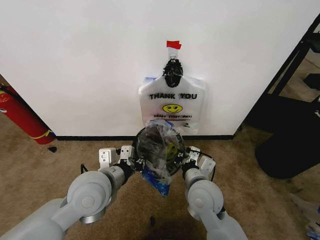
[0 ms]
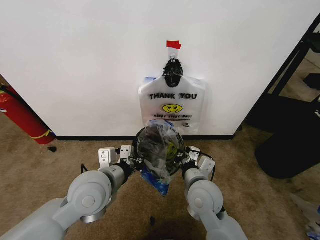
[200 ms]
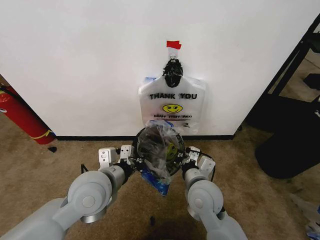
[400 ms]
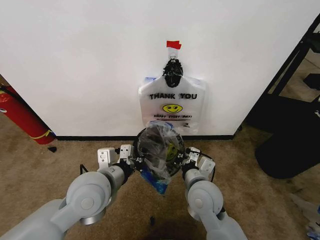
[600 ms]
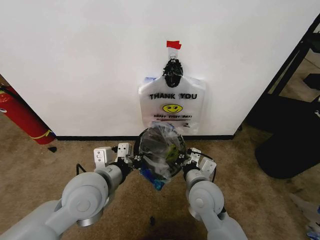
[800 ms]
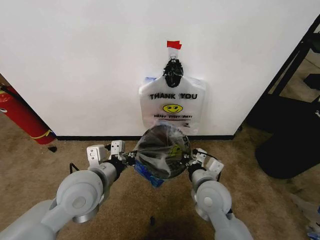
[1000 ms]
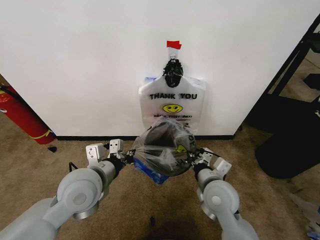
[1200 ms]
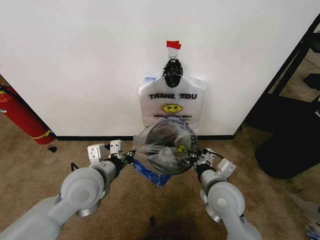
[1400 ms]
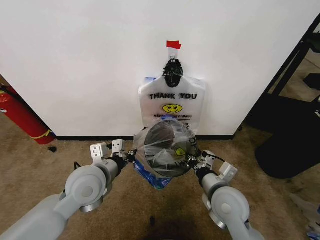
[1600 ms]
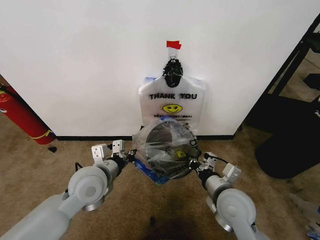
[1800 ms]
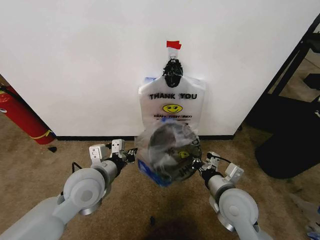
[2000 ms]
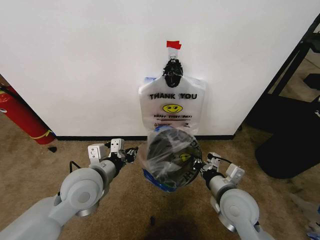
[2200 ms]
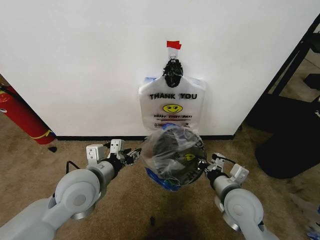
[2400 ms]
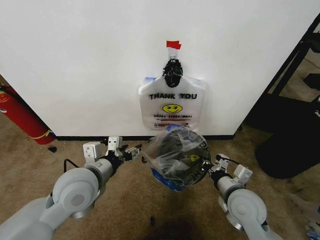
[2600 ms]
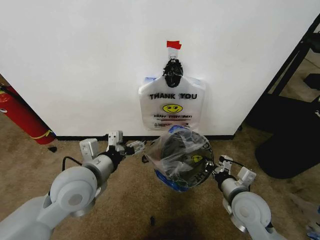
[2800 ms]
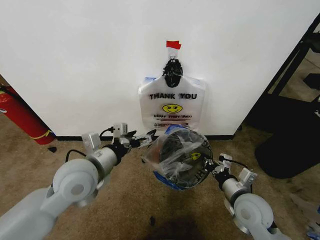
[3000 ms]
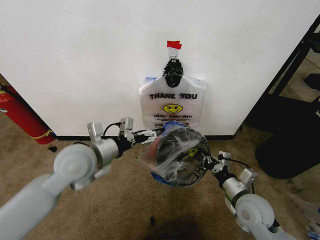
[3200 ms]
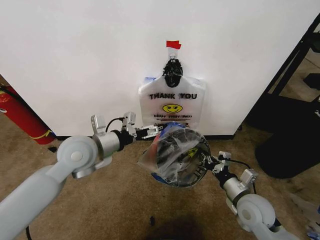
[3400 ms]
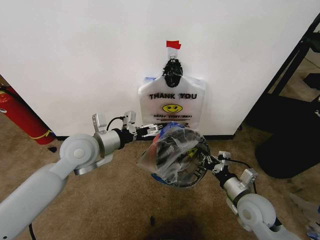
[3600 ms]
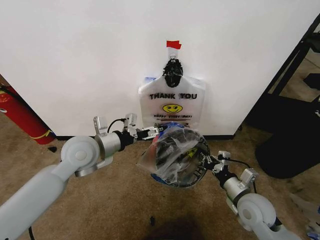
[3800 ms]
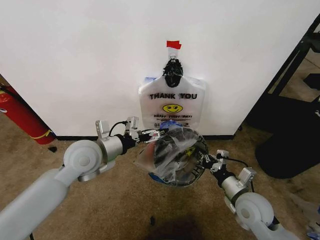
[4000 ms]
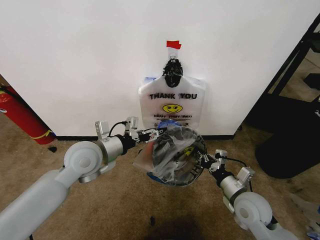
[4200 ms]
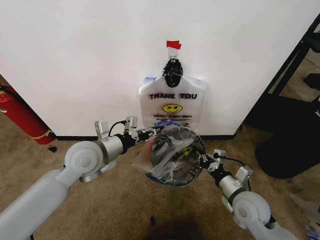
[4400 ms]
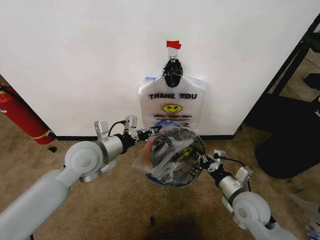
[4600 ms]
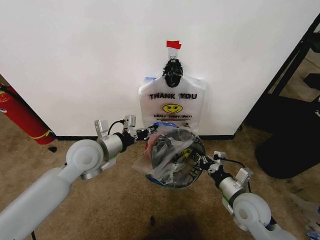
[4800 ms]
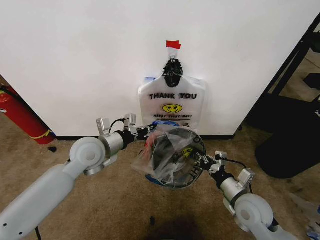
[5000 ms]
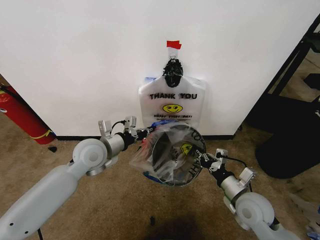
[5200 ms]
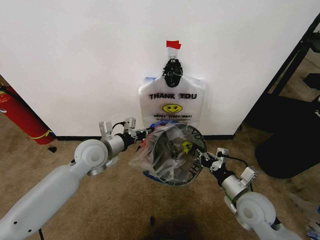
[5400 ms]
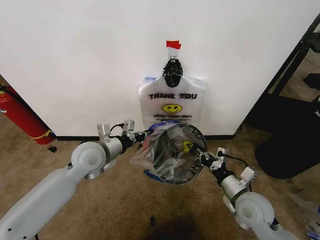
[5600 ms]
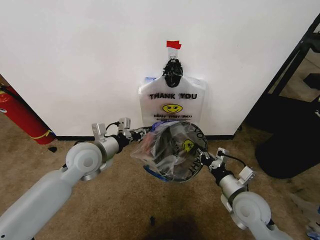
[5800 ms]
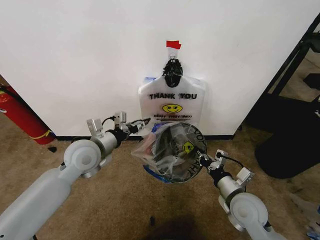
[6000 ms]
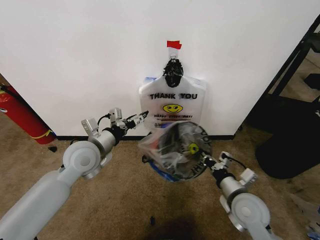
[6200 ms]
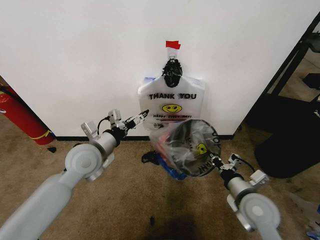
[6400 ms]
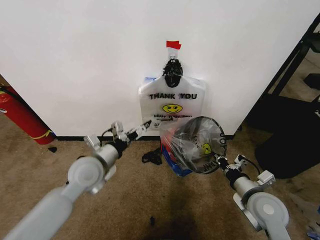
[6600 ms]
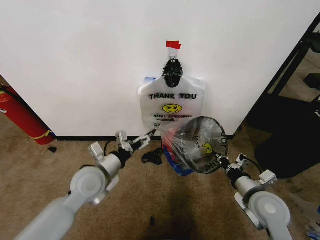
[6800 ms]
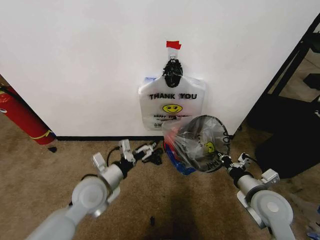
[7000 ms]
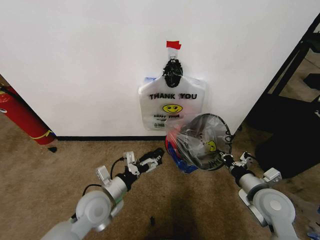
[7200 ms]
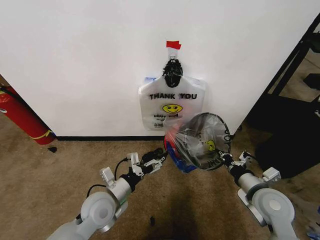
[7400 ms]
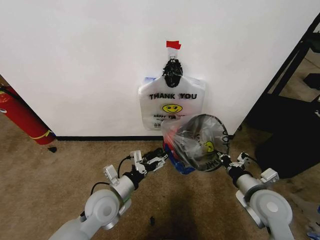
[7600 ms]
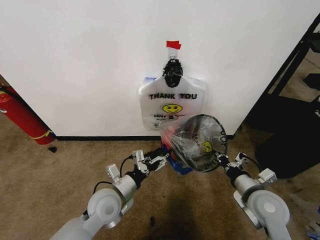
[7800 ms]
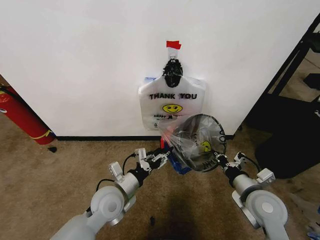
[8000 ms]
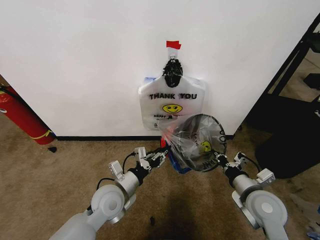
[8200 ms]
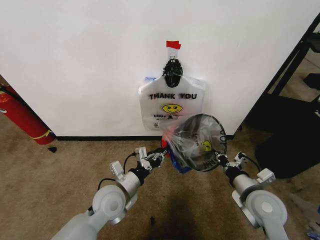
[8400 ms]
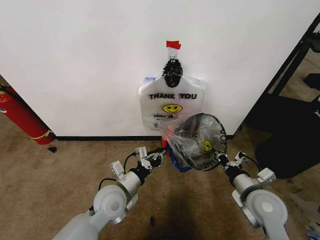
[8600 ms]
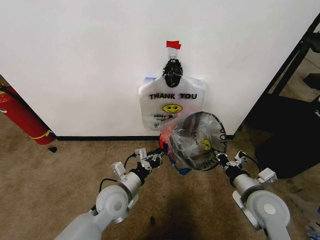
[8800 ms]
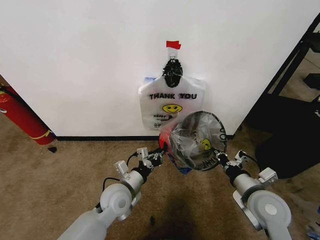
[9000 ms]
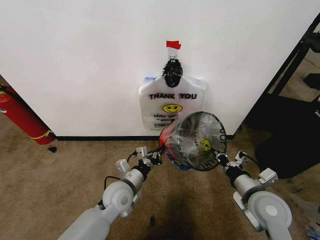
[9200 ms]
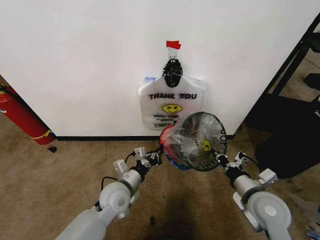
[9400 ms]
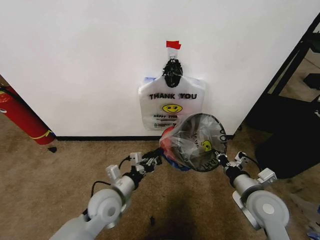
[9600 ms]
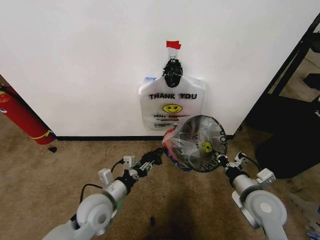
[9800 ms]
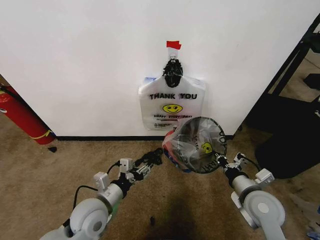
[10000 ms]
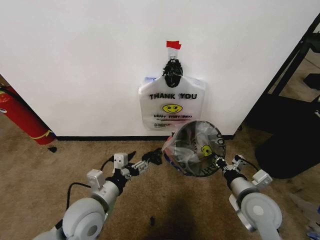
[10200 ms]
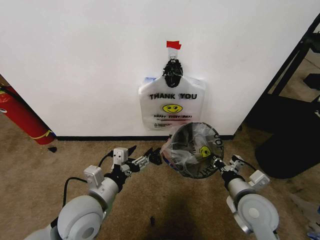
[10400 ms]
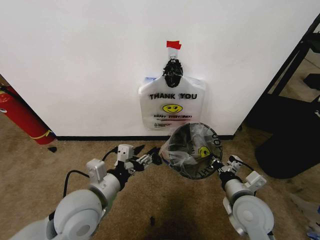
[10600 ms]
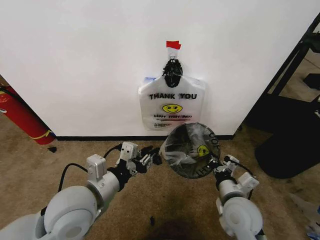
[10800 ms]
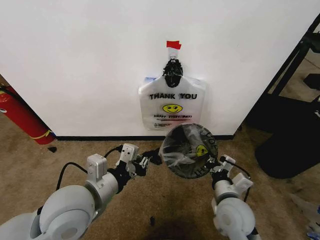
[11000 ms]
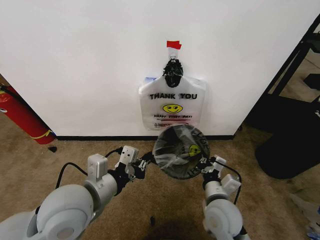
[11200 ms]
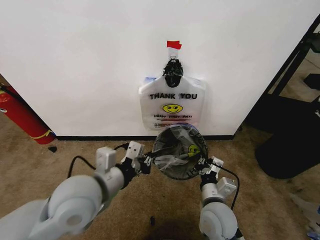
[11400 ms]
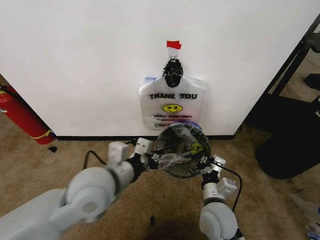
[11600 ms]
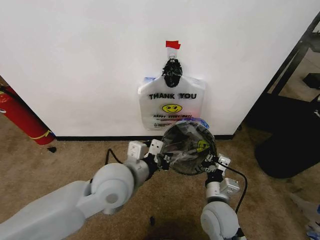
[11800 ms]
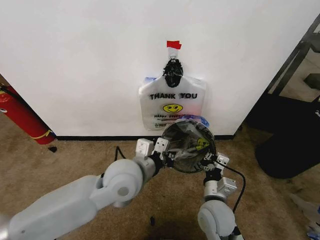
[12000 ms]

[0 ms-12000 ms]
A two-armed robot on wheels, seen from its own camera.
Task of the whole recording: Pick up the garbage bag from the wall and place it over the trash bin.
0 ms to 1600 ms: The right gripper is displaced to the right by some 5 cm.
1600 ms to 3000 ms: The right gripper is displaced to the right by some 5 cm; the left gripper opens.
3000 ms to 4400 ms: The left gripper goes roughly 10 cm forward, and closes its fingers.
4400 ms to 6000 ms: The left gripper closes, then opens again.
6000 ms to 7600 ms: The right gripper changes place by roughly 5 cm, while the left gripper is displaced downward and backward by approximately 15 cm, and opens.
7600 ms to 9000 ms: The left gripper closes.
9000 ms to 10400 ms: The left gripper is displaced upward and backward by some 10 cm, and opens its fingers.
10400 ms to 12000 ms: The left gripper is displaced to the right, forward and upward by about 15 cm, and closes. The right gripper shifts approximately 10 cm to the left.

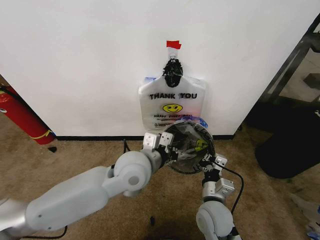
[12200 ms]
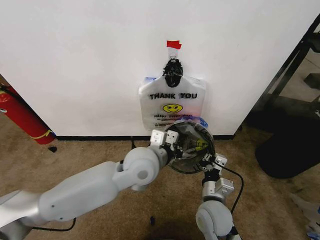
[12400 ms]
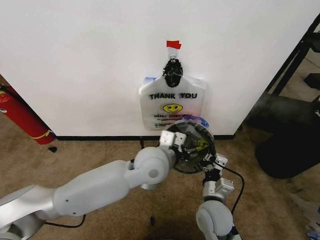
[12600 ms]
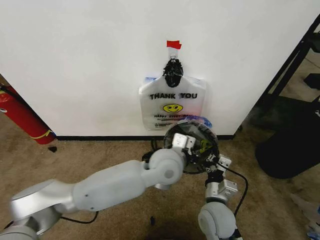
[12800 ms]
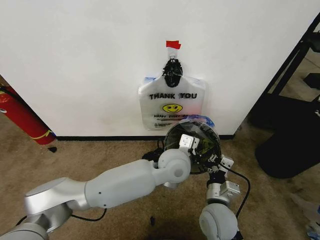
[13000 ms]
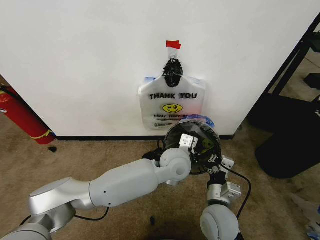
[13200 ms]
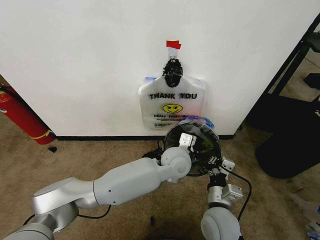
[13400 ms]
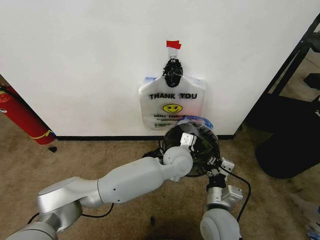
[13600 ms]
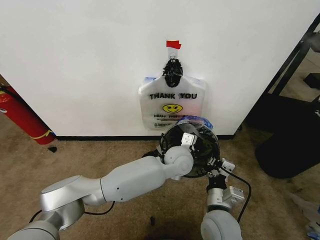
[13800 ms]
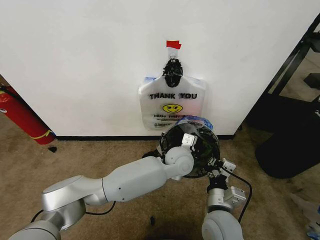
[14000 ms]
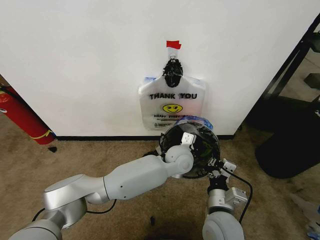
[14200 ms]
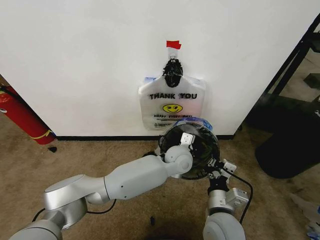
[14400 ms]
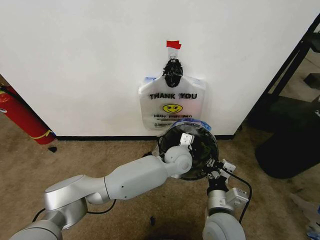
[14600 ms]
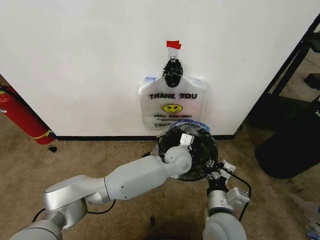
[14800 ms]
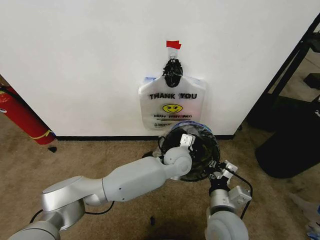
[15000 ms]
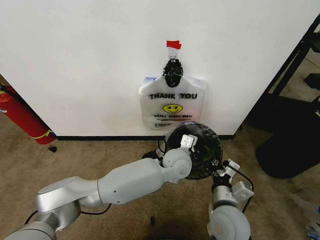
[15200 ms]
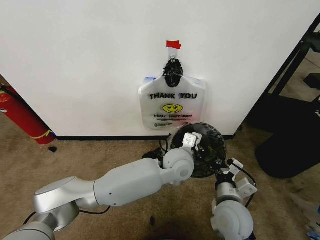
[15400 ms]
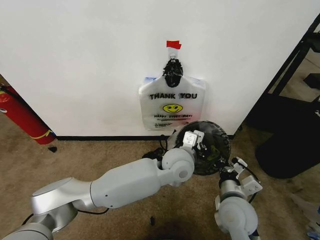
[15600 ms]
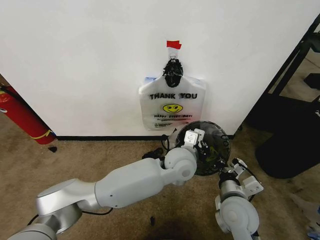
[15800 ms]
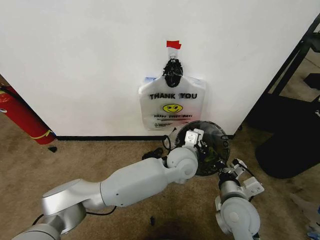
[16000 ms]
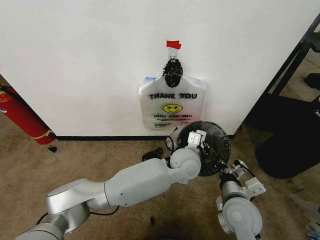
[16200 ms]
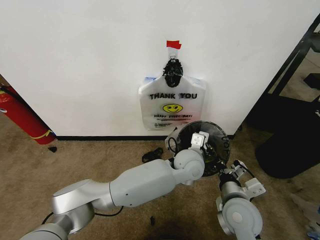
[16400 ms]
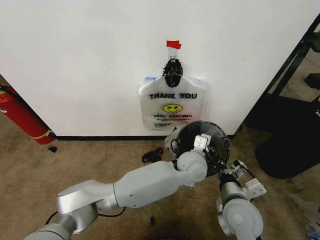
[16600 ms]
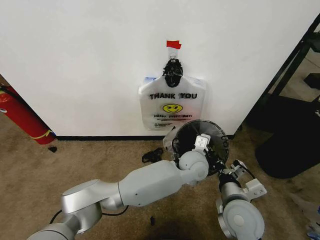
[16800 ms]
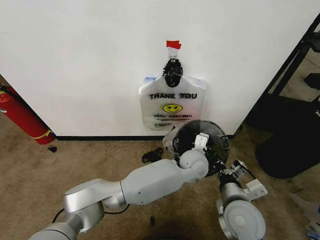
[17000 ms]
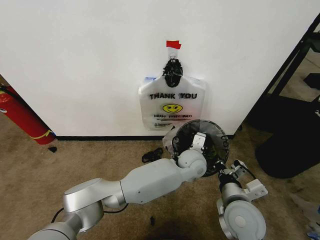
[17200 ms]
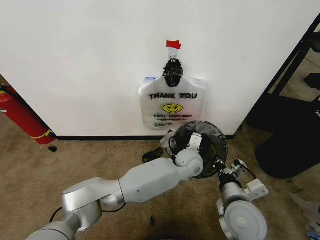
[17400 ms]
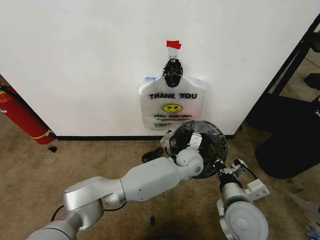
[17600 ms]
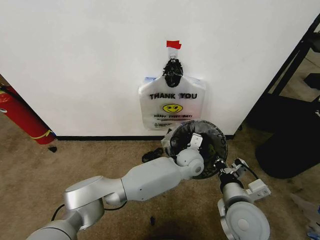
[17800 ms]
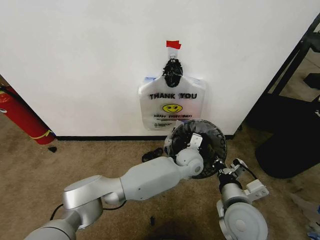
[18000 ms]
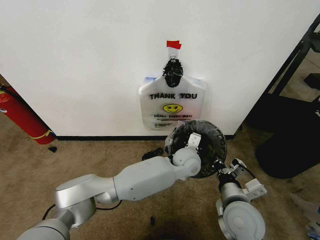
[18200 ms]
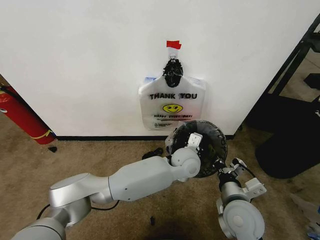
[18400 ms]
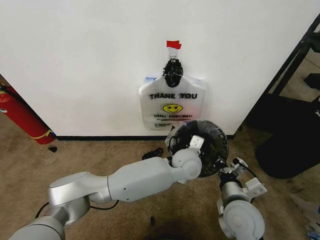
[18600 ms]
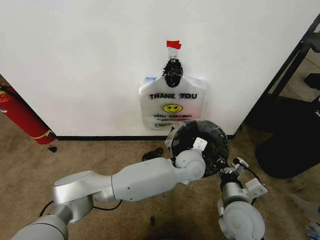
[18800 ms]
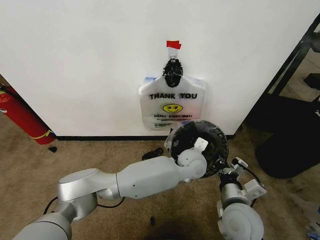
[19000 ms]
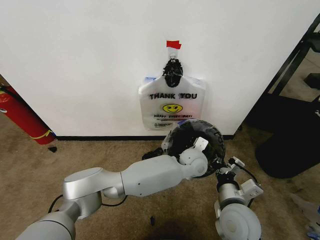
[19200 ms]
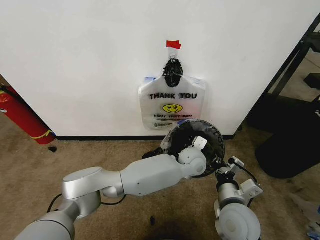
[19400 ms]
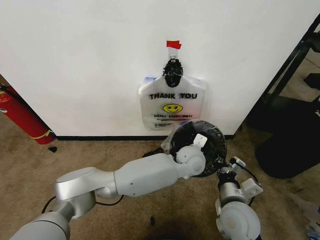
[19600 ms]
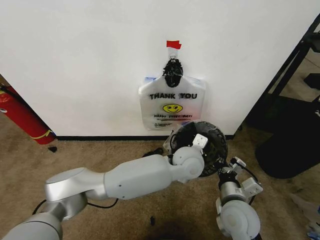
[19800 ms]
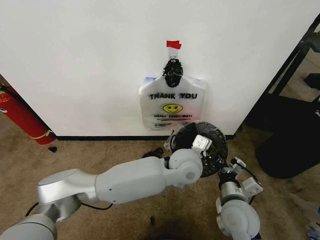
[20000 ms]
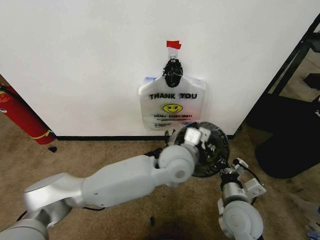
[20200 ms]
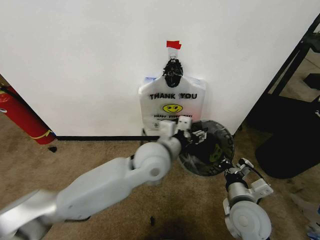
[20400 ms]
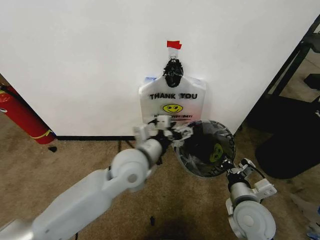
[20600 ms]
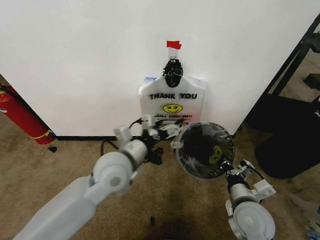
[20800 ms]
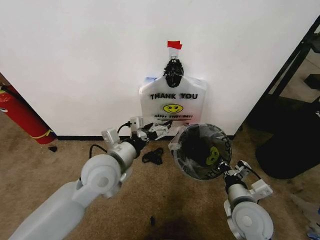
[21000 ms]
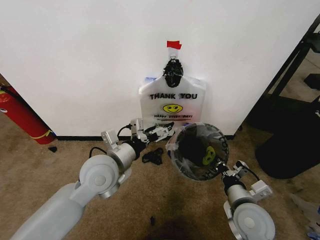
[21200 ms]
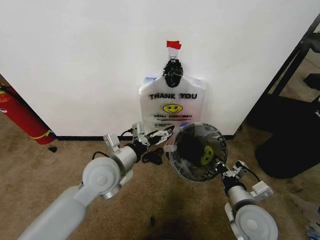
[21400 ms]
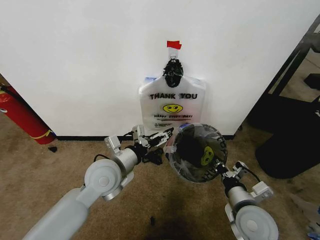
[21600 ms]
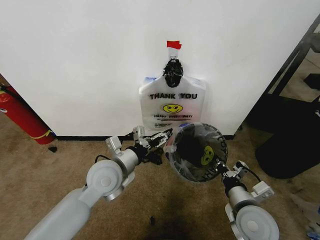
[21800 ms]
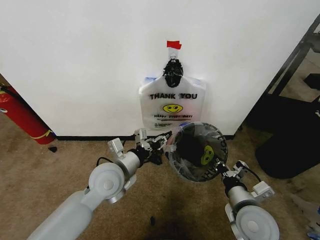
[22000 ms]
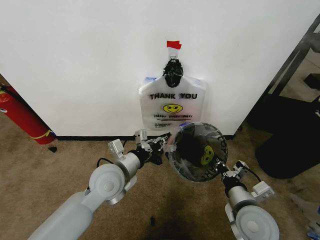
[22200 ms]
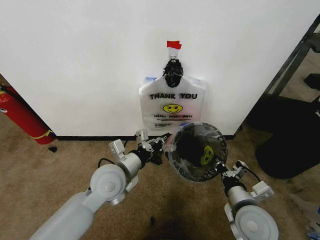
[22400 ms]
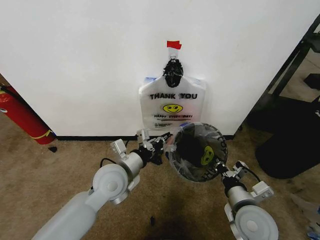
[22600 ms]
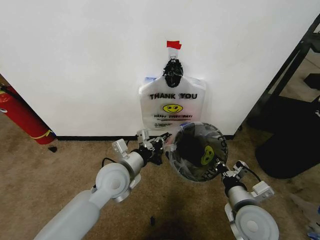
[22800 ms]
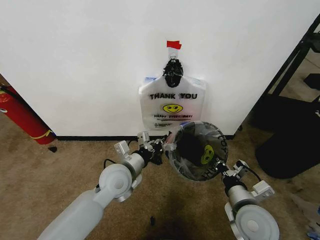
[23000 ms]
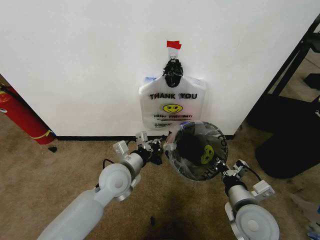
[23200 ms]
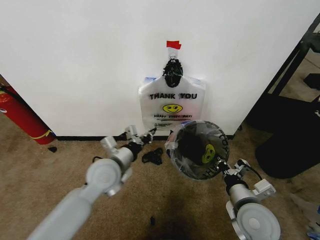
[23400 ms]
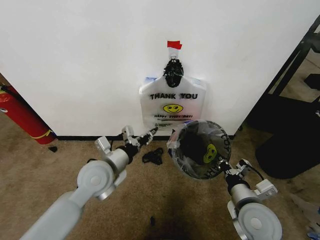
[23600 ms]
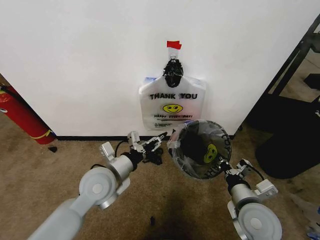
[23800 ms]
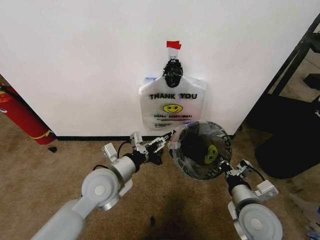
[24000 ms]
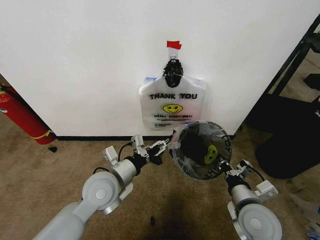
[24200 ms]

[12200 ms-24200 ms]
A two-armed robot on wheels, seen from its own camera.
Task of the whole recording: Pick up the garbage bag from the wall and place it over the trash bin.
12200 ms to 13800 ms: The left gripper moves to the right, forward and downward, approximately 20 cm.
13800 ms to 15200 ms: The grippers make only small movements.
15200 ms to 16600 ms: The grippers stay close to where they were, moving slightly.
16600 ms to 18200 ms: The grippers stay close to where they were, moving slightly.
18200 ms to 19800 ms: The left gripper travels upward by about 5 cm.
19800 ms to 21200 ms: The left gripper goes approximately 25 cm to the left, and opens its fingers.
21200 ms to 22600 ms: The left gripper closes up.
22600 ms to 24200 ms: The left gripper opens up.
